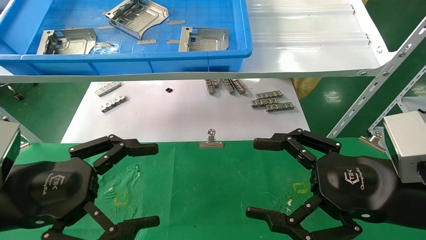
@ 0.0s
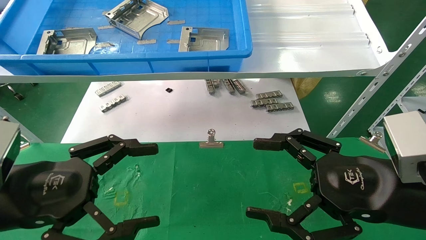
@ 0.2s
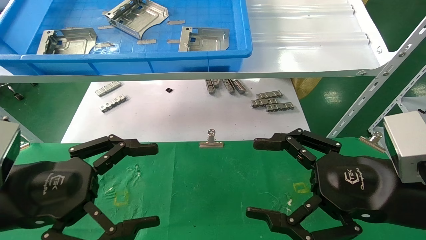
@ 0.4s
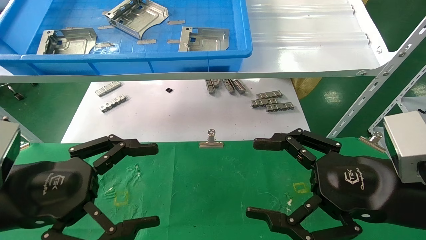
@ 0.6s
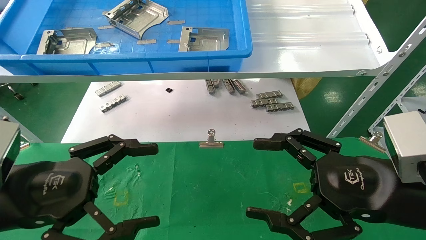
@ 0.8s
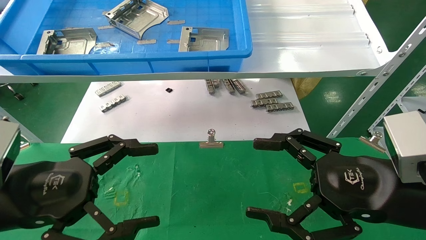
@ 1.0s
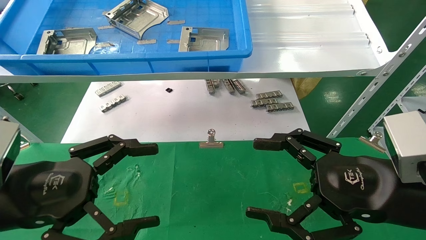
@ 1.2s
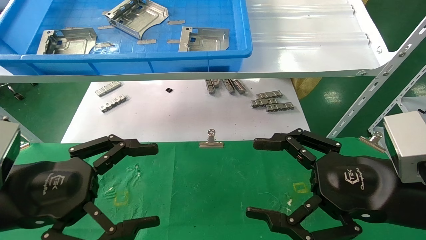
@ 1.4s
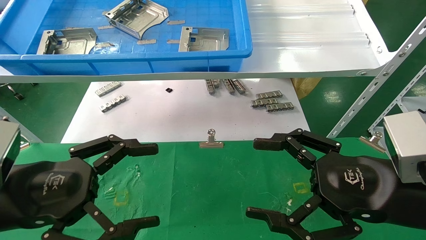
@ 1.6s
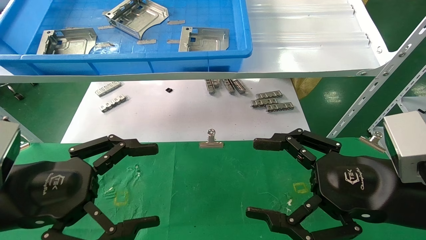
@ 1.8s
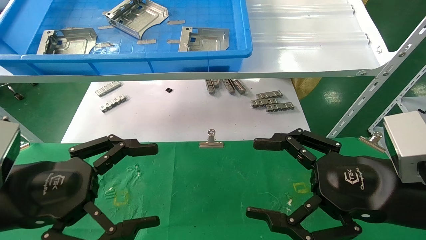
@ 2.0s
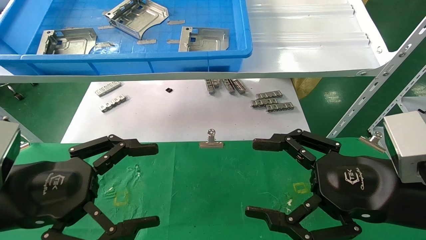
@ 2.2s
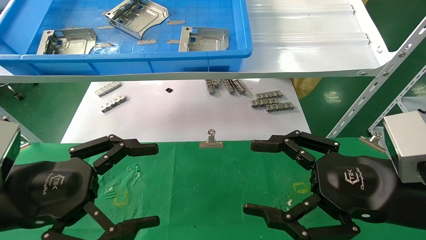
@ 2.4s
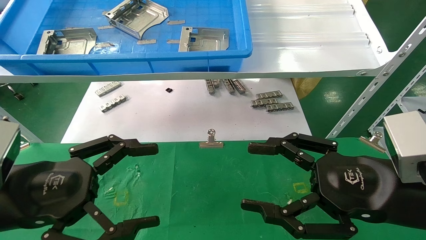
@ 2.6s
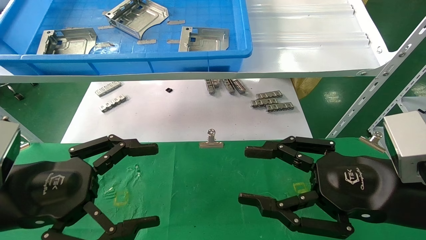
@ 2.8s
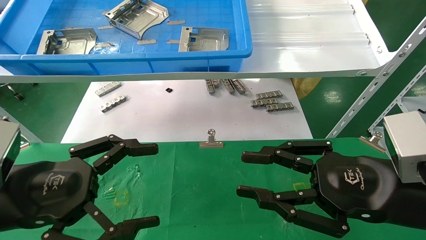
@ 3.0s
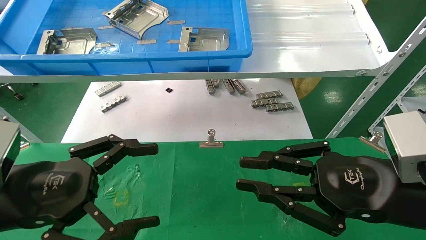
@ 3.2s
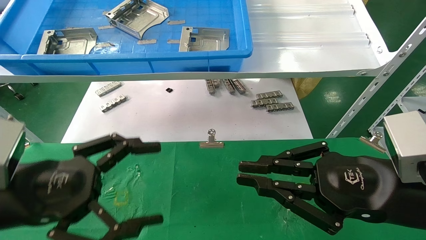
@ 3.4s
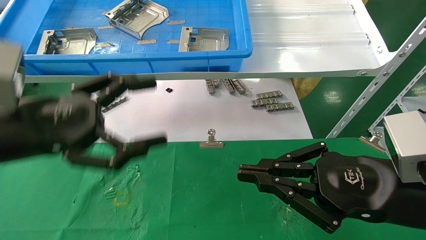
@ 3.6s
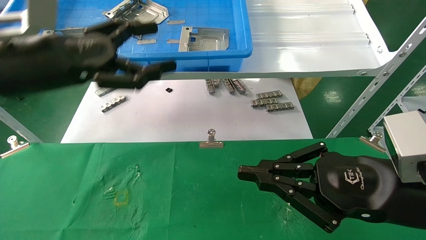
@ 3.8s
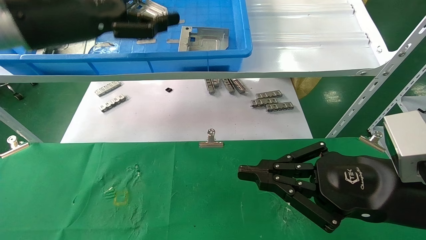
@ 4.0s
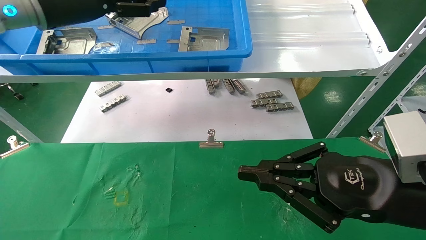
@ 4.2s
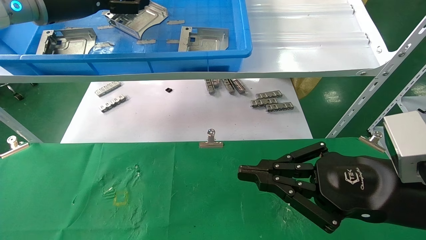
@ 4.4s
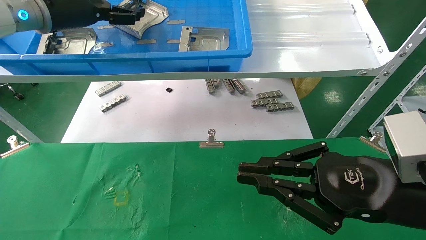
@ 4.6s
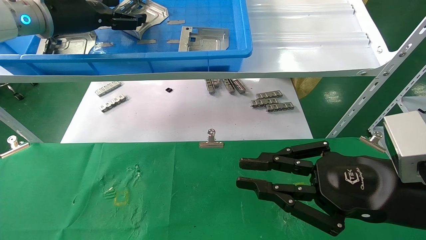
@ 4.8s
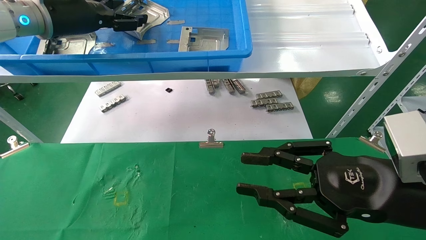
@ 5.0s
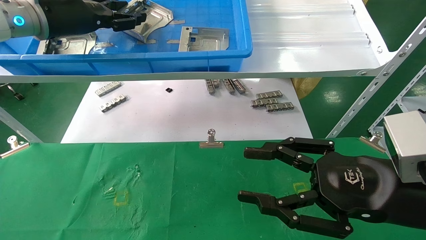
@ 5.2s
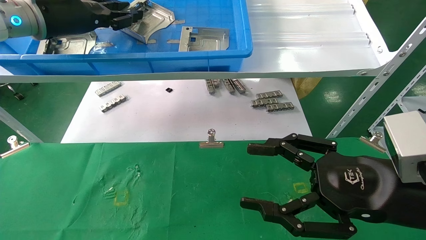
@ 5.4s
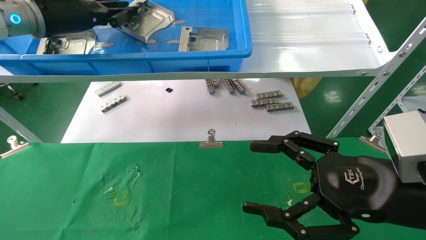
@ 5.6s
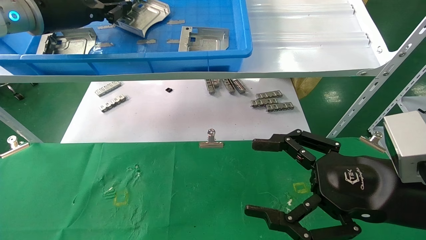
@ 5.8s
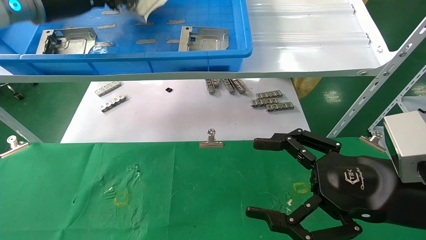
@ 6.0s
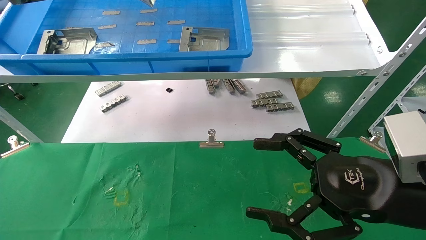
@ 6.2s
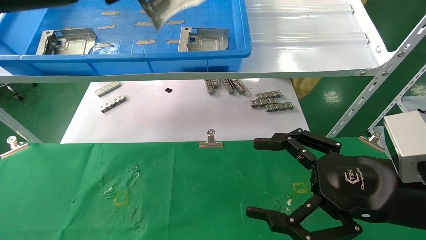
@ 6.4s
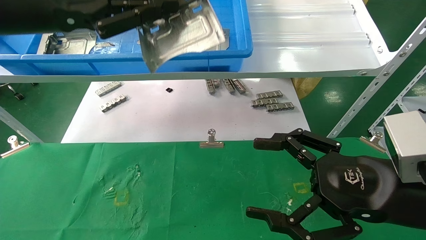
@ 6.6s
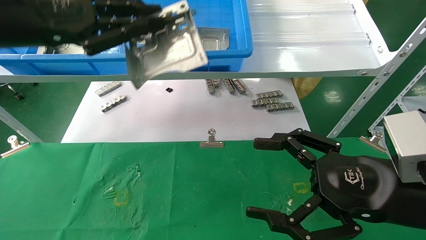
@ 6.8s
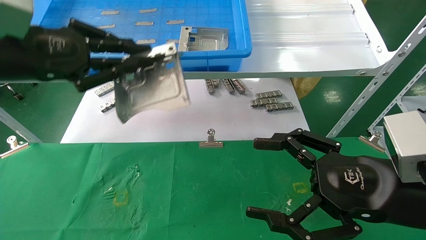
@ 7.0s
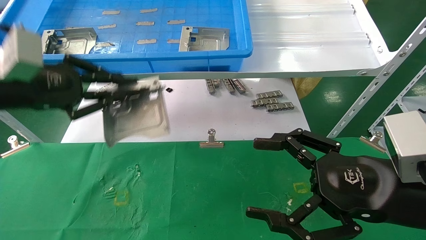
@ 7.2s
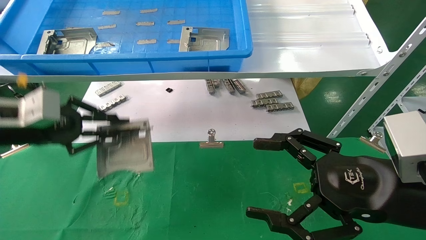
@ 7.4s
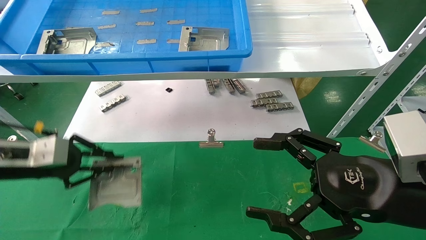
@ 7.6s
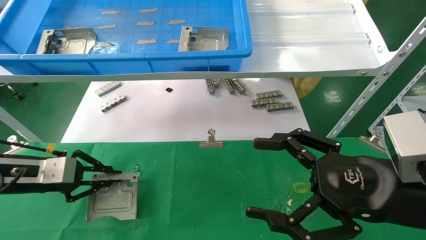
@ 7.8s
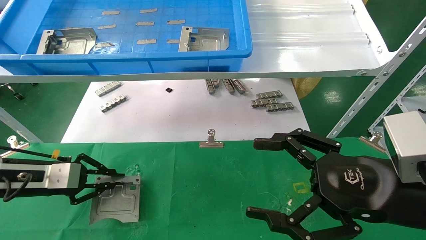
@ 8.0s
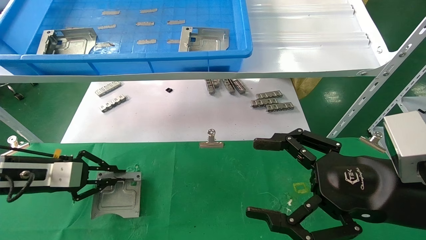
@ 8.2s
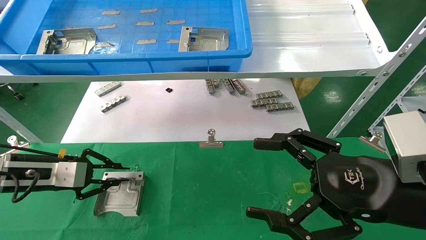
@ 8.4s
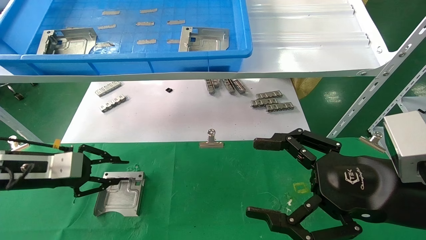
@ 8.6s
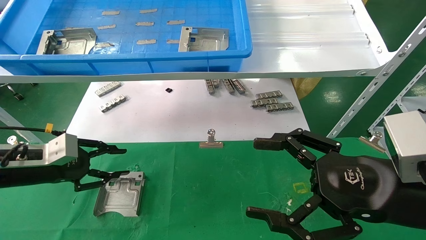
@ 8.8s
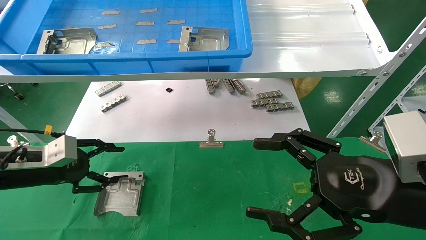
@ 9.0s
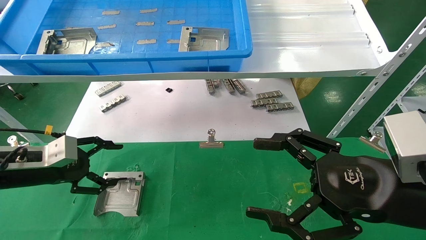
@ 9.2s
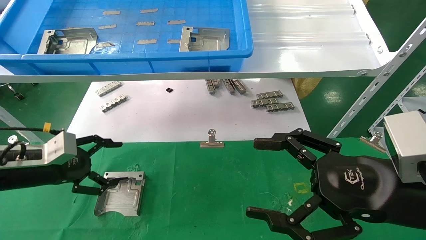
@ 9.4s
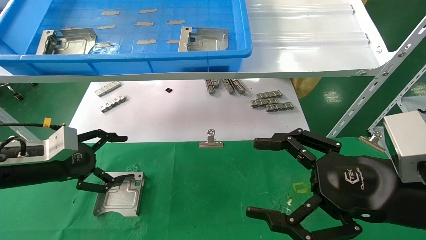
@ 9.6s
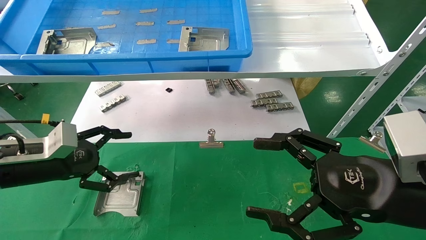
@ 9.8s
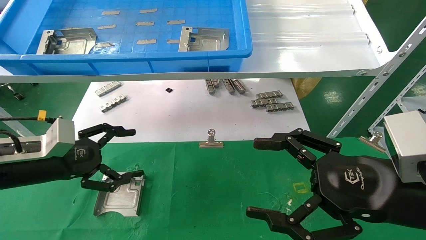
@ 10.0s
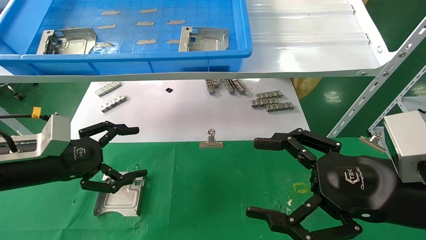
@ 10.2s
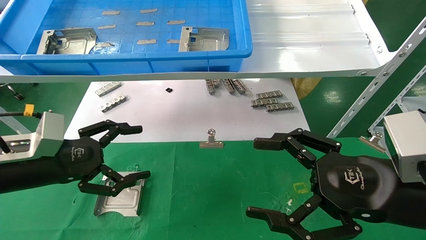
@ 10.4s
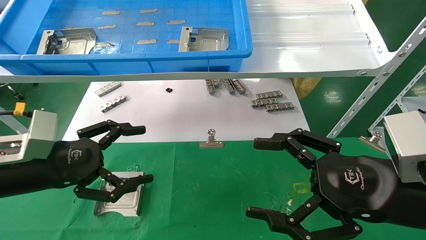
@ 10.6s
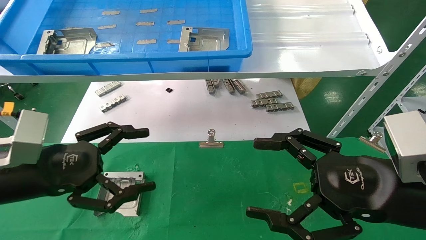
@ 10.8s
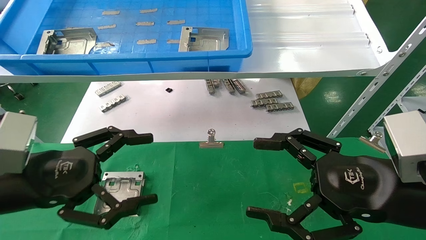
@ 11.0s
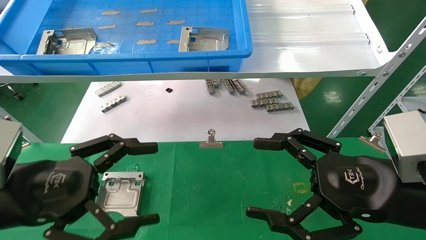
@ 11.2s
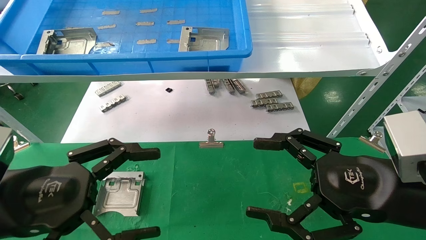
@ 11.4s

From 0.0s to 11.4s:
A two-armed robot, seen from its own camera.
Task of the whole recording: use the mechanical arm to pick up the parts and place them on the table.
Step, from 3.8s to 5.6s: Pick up the hard drive bracket from the feeding area.
Step, from 5.8s to 8.4s: Place the hard drive bracket into the box.
From 0.0s to 2.8s: Neither gripper changes place.
From 2.8s to 4.2s: The left gripper goes some 30 cm upward and forward. The right gripper closes up.
From 4.2s to 5.6s: The right gripper opens, while the left gripper closes its fingers.
From 5.6s to 7.2s: The left gripper shifts some 15 cm backward and downward.
From 7.2s to 8.6s: The left gripper shifts roughly 15 cm downward.
From 8.6s to 10.0s: The left gripper shifts by approximately 5 cm, and opens up.
From 10.0s to 11.4s: The left gripper is displaced backward and to the right by approximately 15 cm.

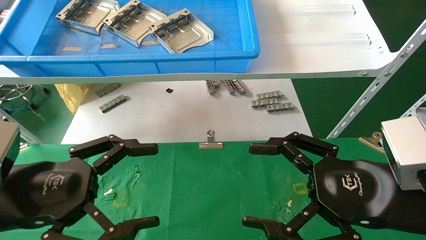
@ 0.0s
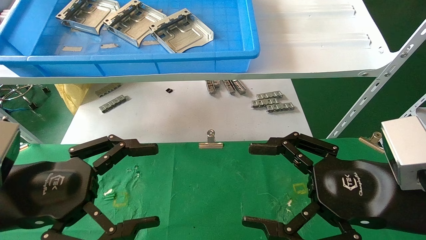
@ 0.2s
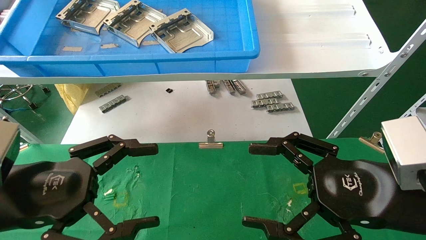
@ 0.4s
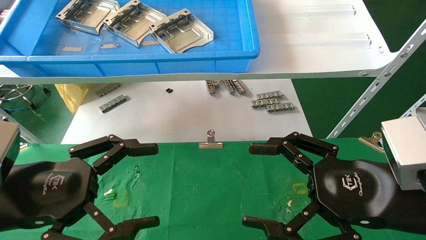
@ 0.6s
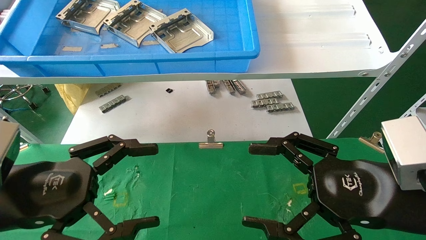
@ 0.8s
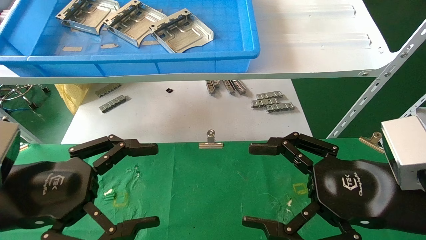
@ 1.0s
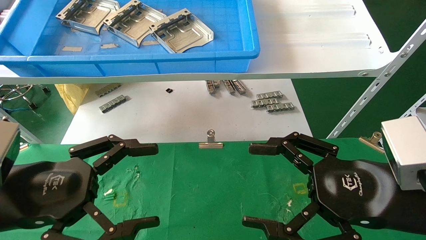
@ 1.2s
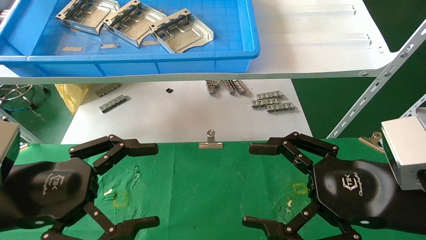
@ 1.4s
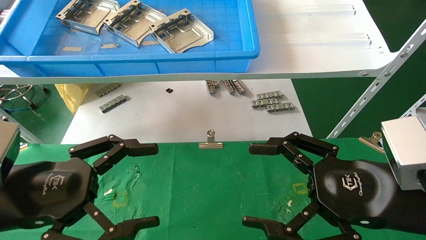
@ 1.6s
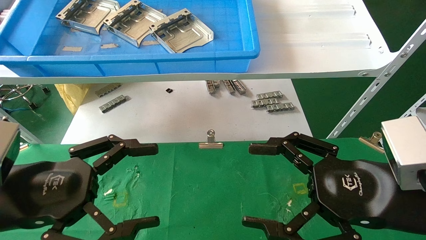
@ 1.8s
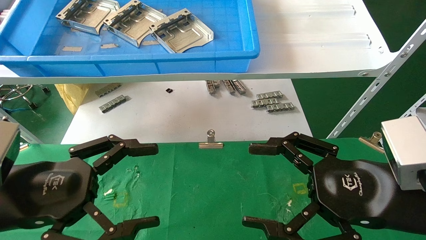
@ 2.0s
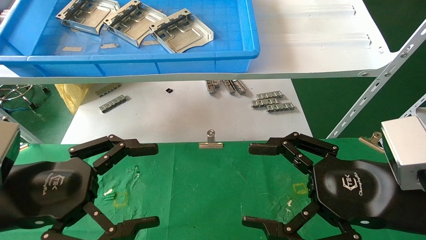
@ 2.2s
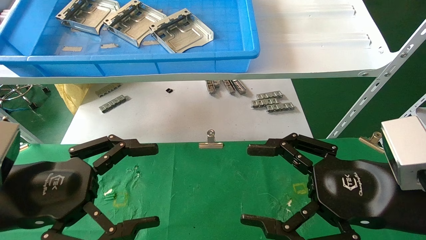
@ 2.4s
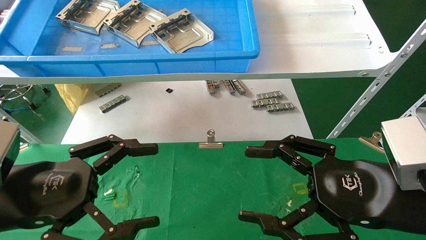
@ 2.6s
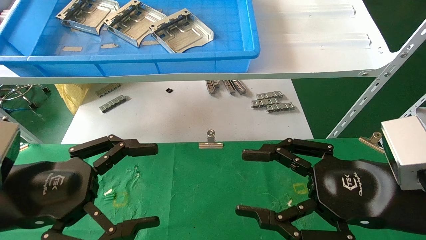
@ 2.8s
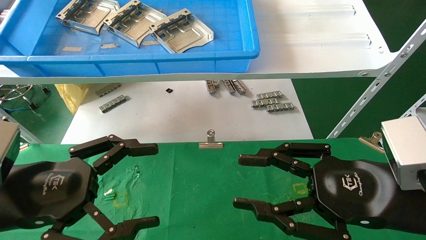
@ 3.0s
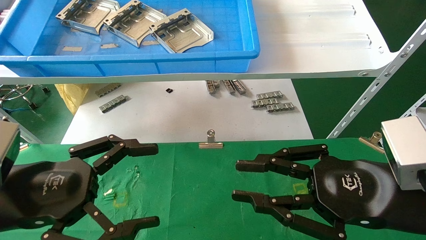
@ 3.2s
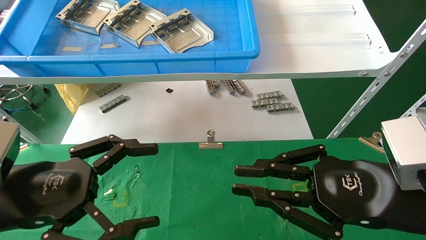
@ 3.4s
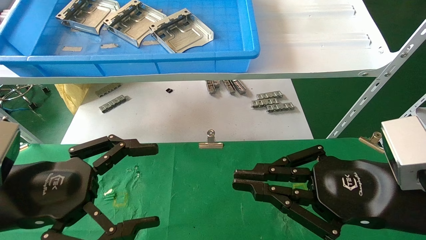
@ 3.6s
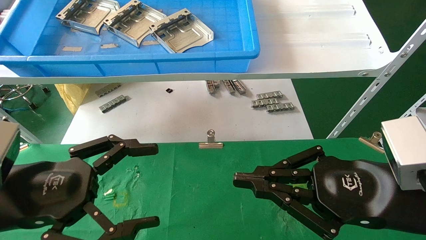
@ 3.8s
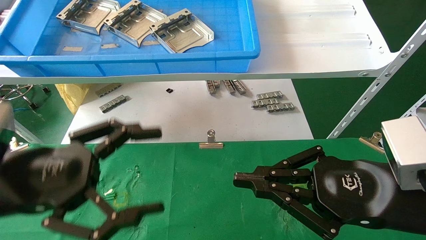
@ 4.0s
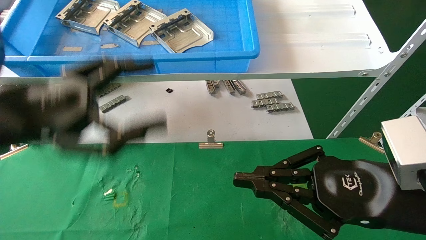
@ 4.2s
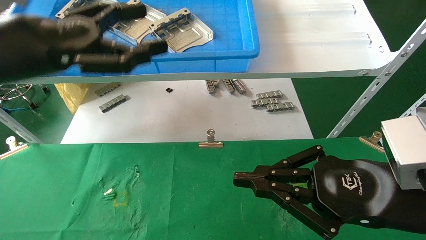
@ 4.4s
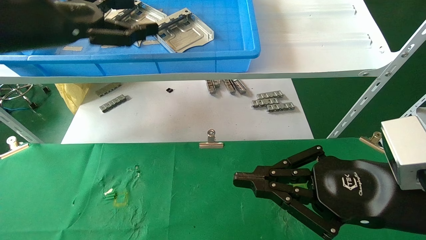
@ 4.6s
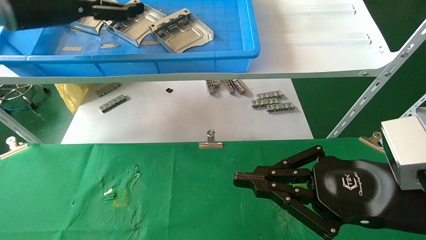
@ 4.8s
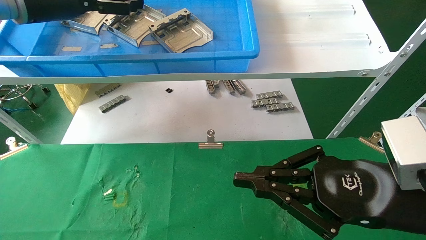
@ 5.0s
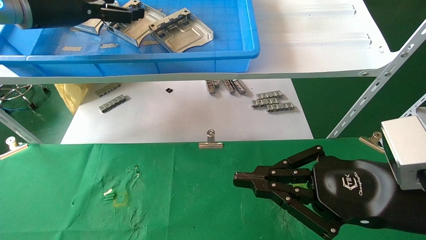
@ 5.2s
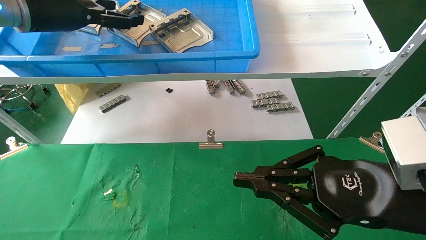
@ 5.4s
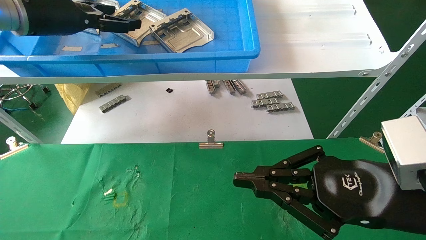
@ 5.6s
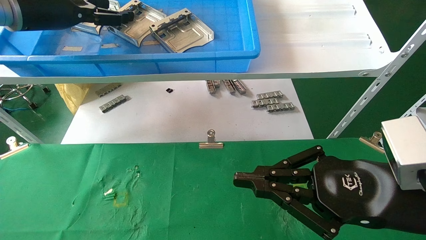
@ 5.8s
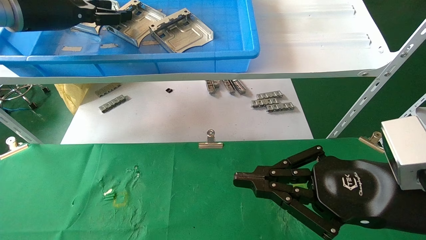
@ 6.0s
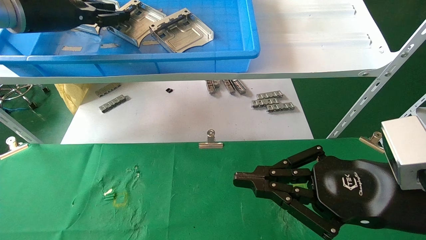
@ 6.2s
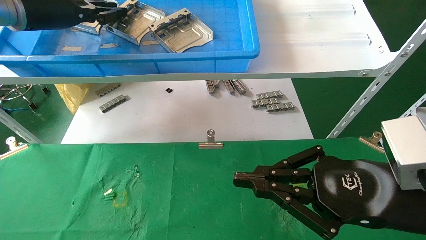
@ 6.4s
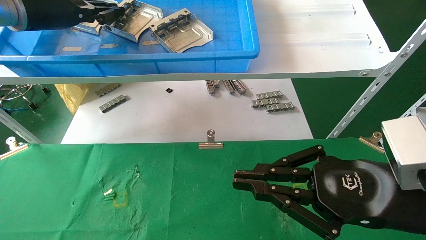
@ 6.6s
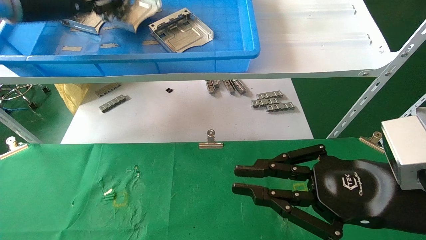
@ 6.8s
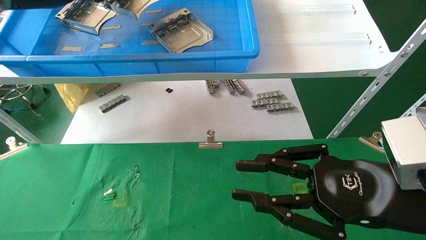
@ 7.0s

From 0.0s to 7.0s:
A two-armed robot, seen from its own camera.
Task of the whole recording: use the mechanical arm to pick up the parts and place them on the table.
Step, from 4.2s to 6.6s: Pick up the hard drive bracket from the feeding area.
From 0.0s to 2.8s: Neither gripper changes place.
From 2.8s to 4.2s: The left gripper goes about 10 cm upward, while the right gripper closes.
From 4.2s to 5.6s: The left gripper goes some 20 cm forward and upward.
From 5.6s to 7.0s: The left gripper closes.
